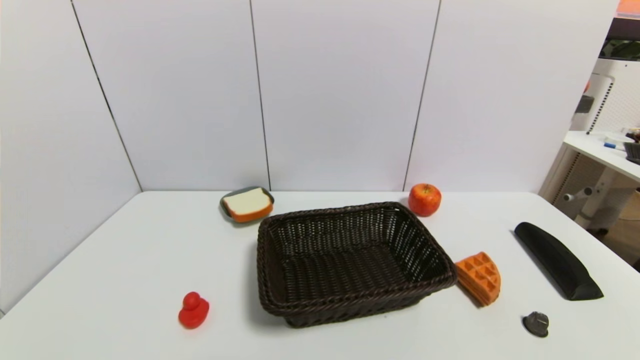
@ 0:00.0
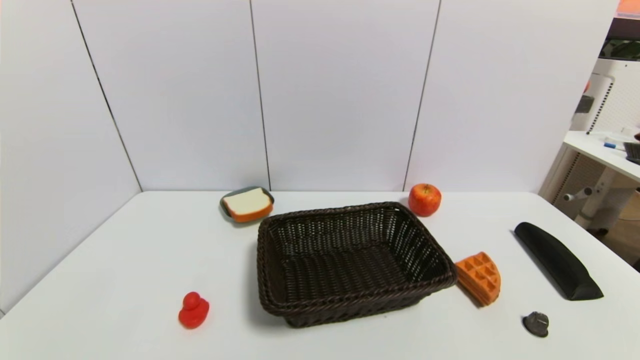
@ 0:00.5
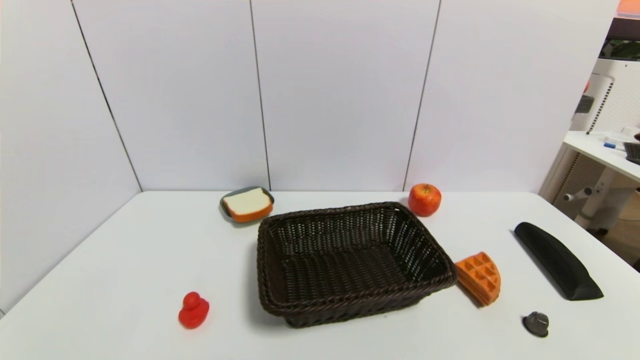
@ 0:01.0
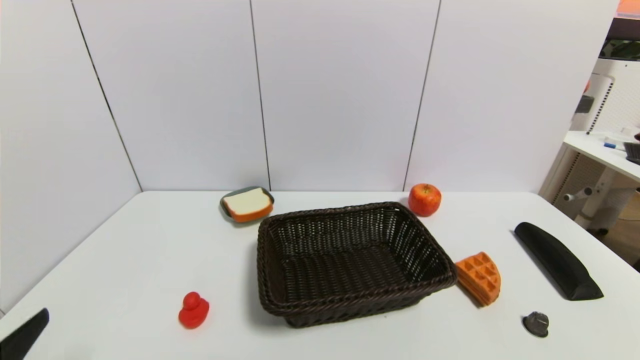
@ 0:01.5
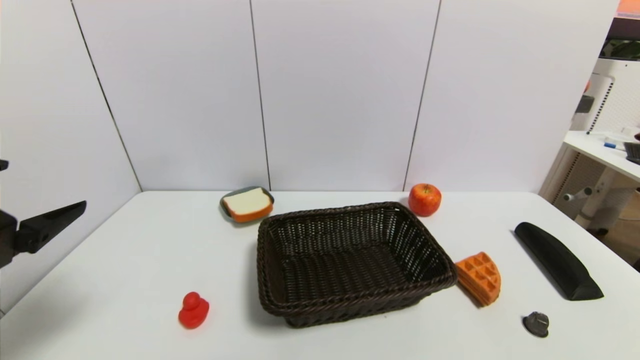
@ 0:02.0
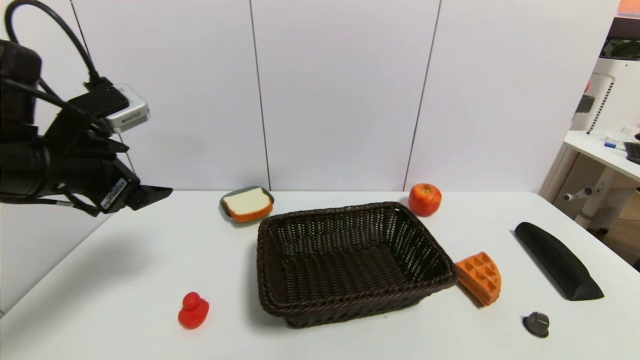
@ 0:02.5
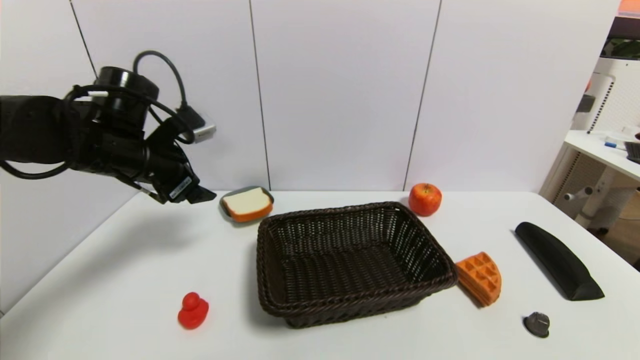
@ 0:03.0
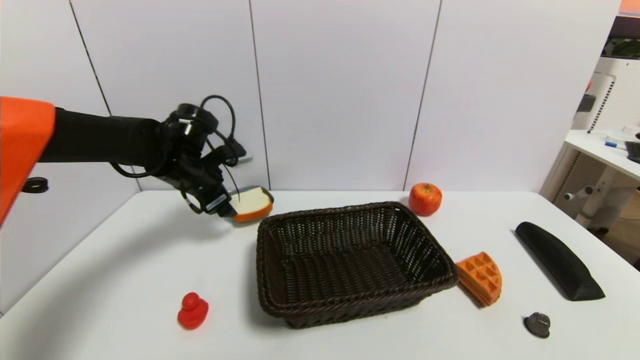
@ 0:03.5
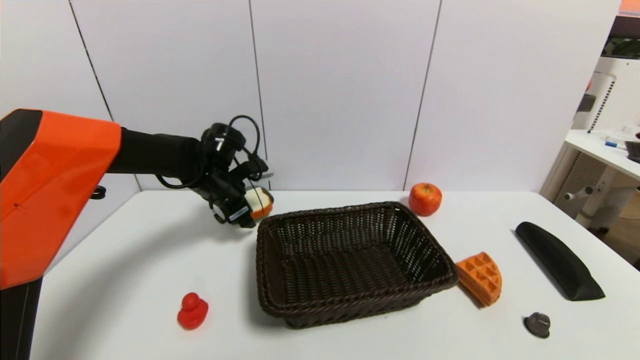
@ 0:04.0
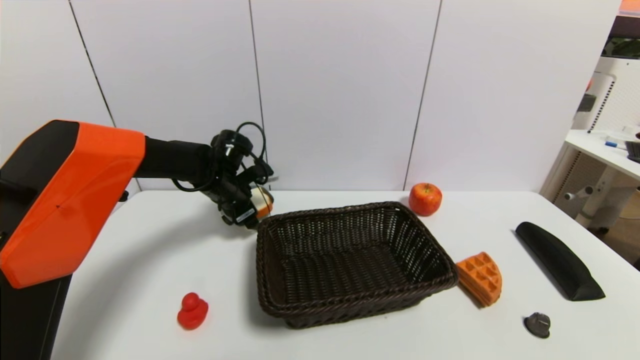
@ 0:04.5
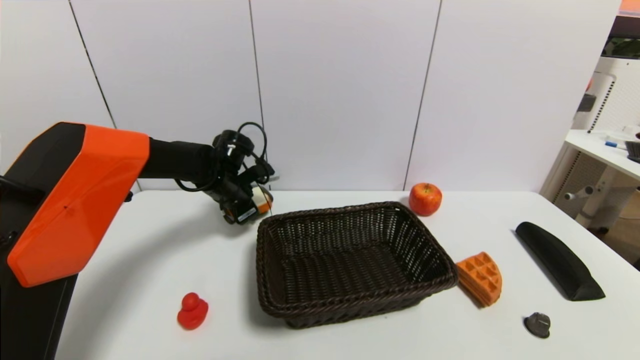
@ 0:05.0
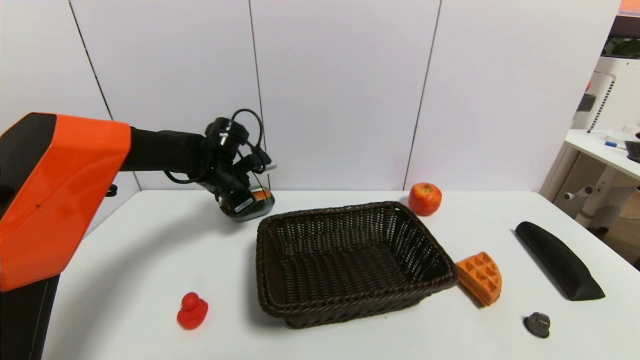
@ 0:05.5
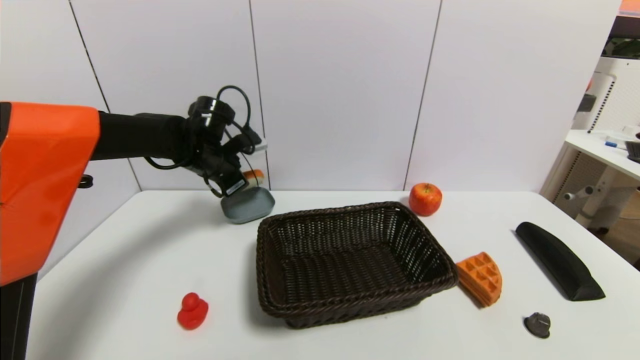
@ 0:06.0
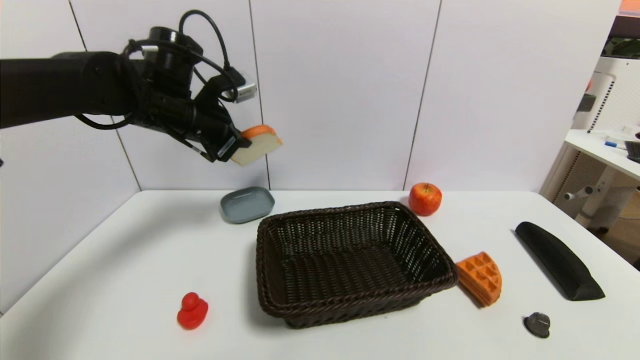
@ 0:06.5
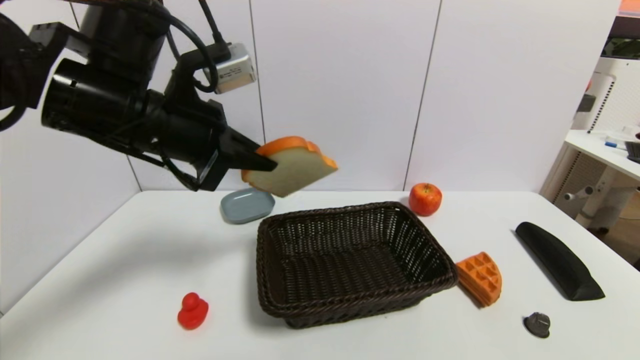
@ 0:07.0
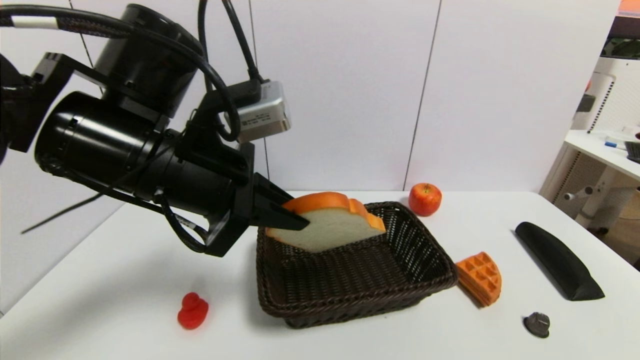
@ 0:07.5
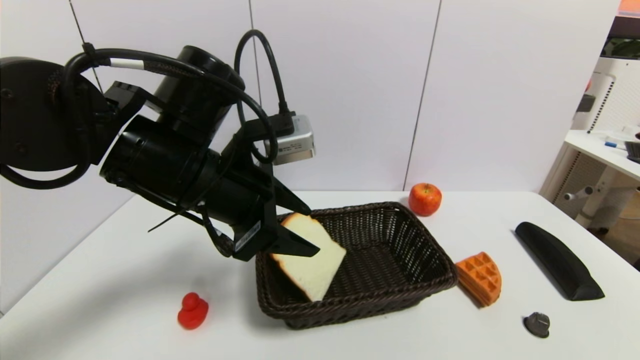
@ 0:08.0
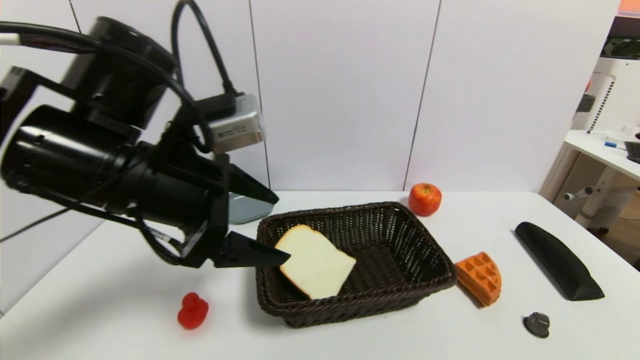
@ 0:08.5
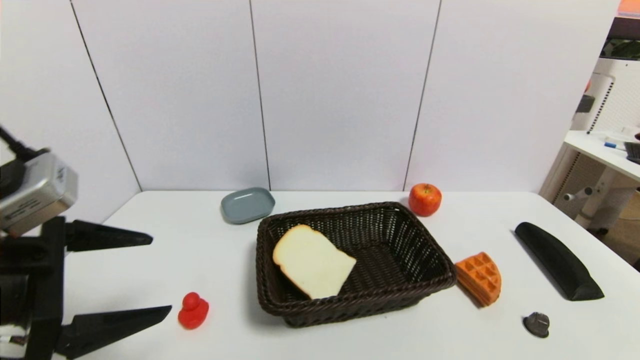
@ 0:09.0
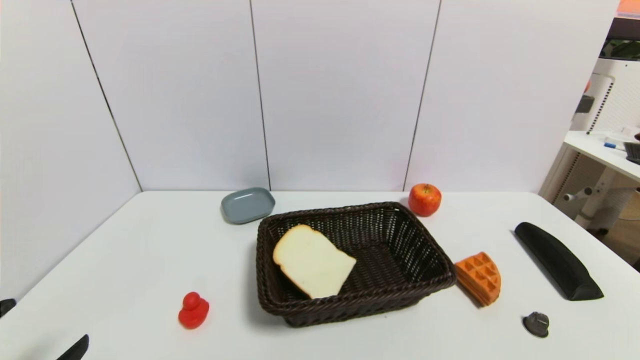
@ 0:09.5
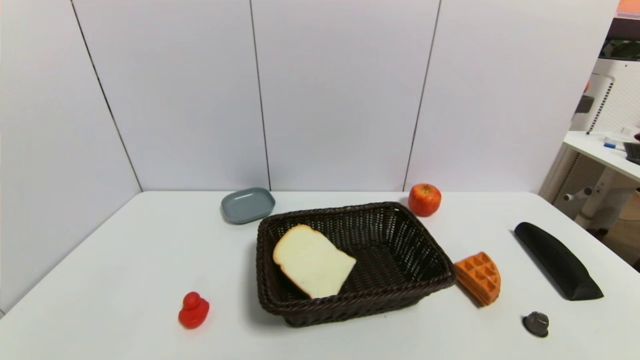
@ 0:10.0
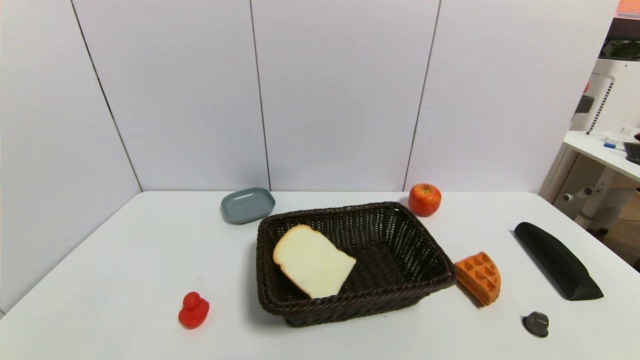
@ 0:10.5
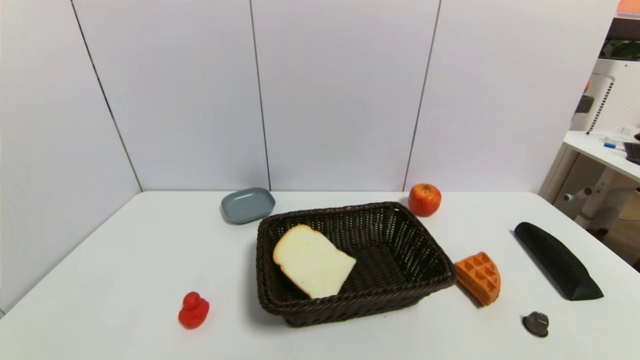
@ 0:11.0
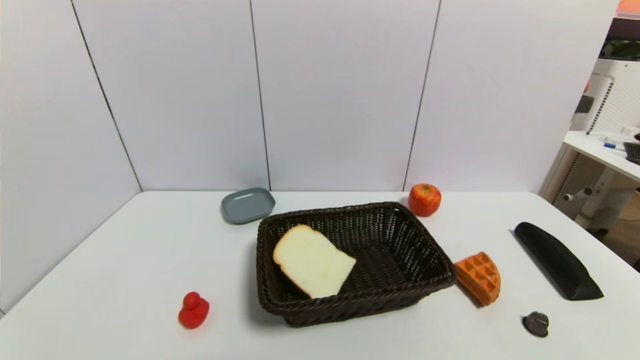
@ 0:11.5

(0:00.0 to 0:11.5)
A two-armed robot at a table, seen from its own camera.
Task of the whole recording: use a gripper to pick the target object and place on the brown basket.
Step, 0:00.0 - 0:05.0: Grasp the bread slice with the left gripper.
Step, 0:05.5 - 0:08.0: Place the bread slice into the basket with the left gripper.
0:00.0 - 0:02.0: The left gripper heads upward and forward, covering roughly 25 cm.
0:02.0 - 0:04.0: The left gripper is displaced forward and downward by about 30 cm.
0:04.0 - 0:06.0: The left gripper ends up about 5 cm from where it was, and closes up.
0:06.0 - 0:07.5: The left gripper moves backward and upward, some 25 cm.
0:07.5 - 0:09.5: The left gripper shifts roughly 30 cm backward, to the left and downward, and opens up.
